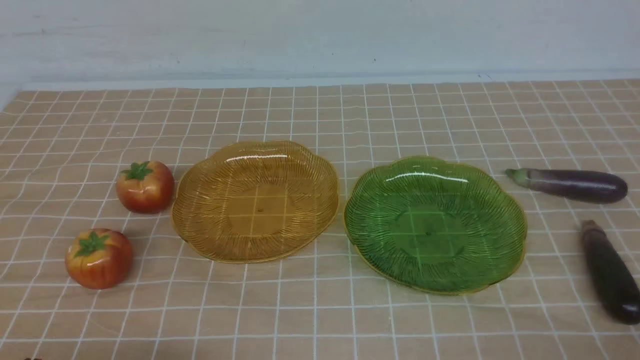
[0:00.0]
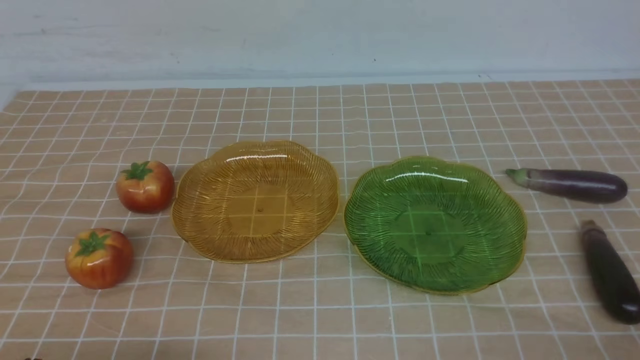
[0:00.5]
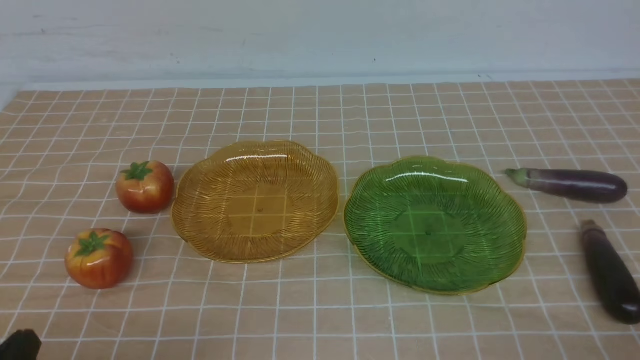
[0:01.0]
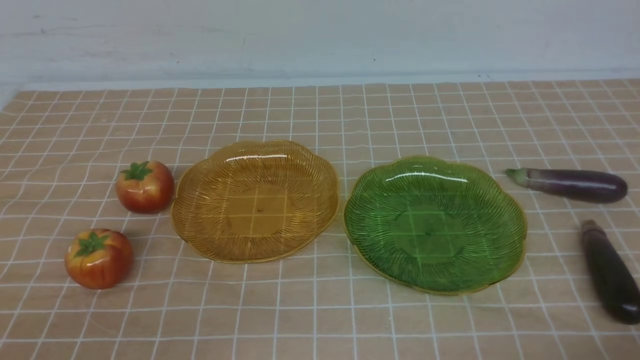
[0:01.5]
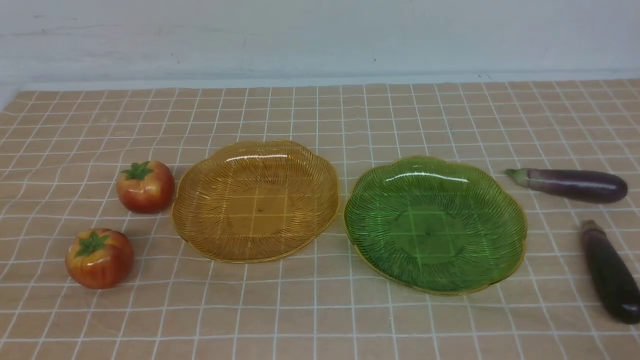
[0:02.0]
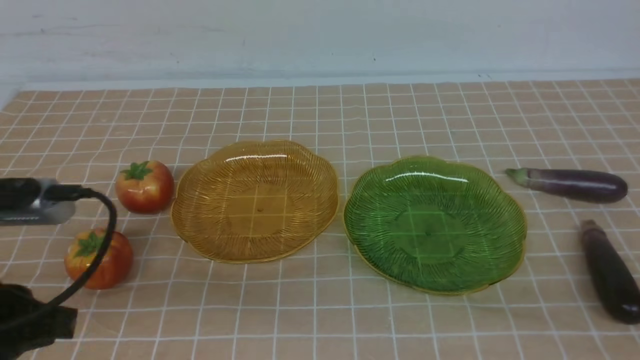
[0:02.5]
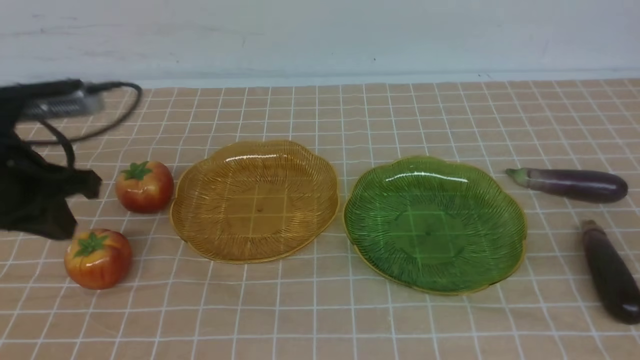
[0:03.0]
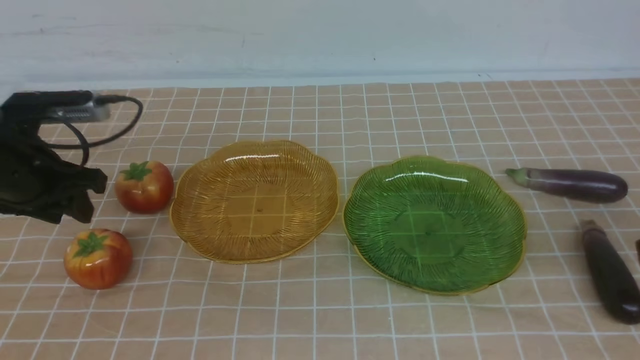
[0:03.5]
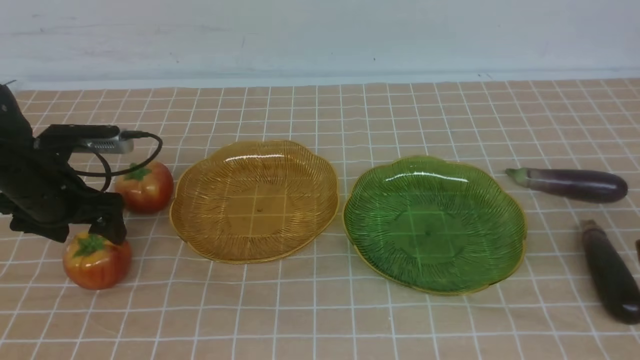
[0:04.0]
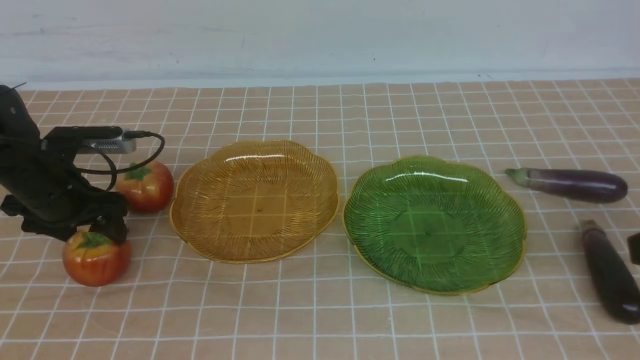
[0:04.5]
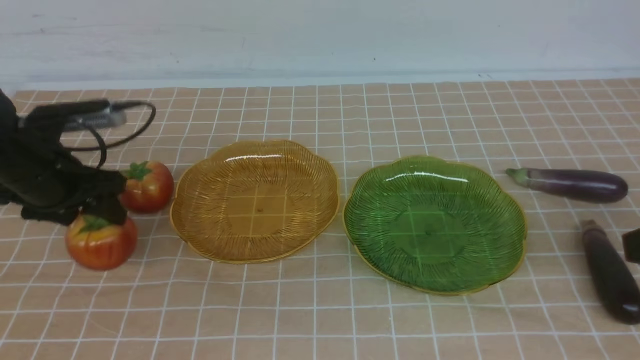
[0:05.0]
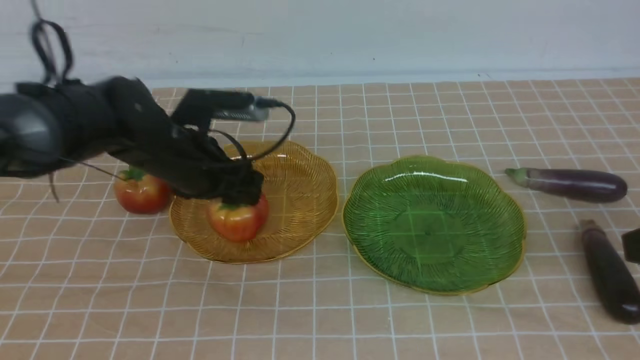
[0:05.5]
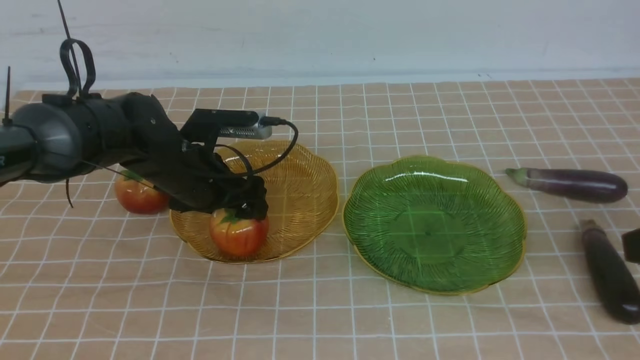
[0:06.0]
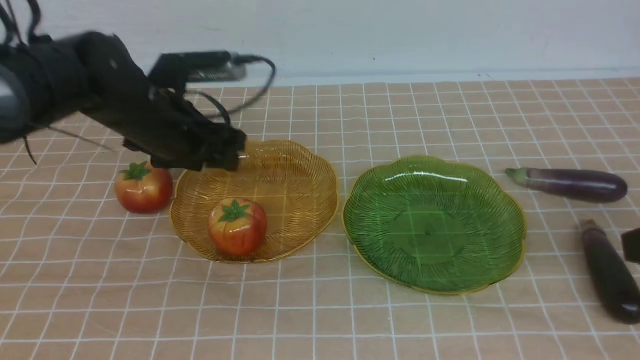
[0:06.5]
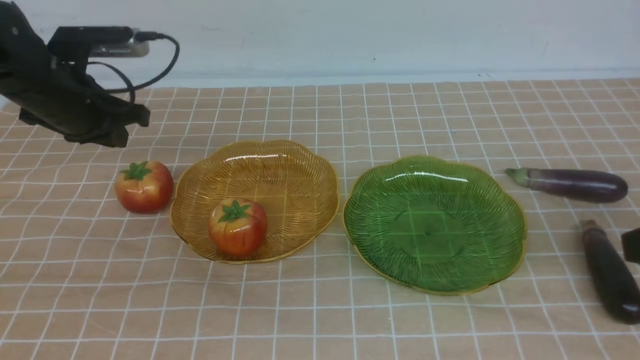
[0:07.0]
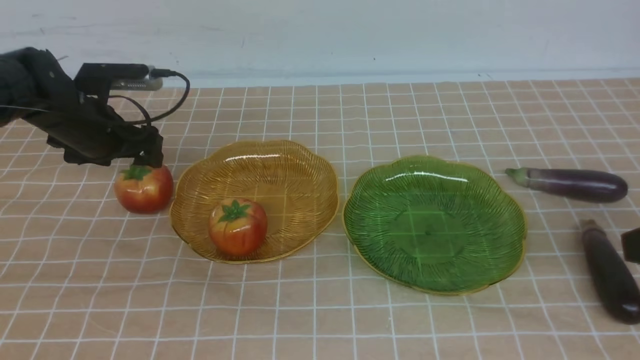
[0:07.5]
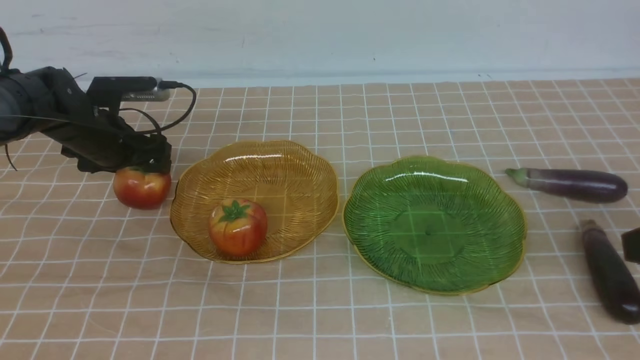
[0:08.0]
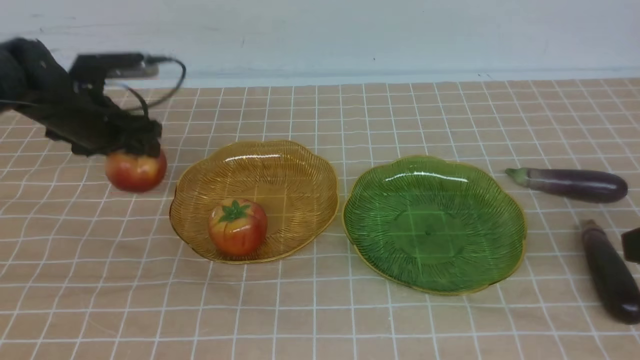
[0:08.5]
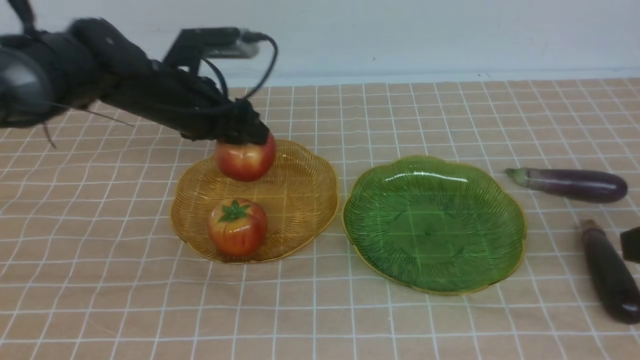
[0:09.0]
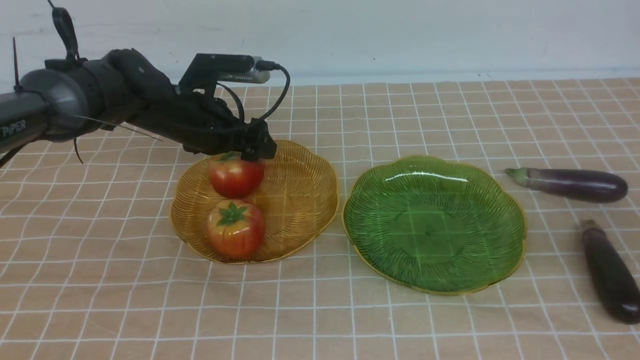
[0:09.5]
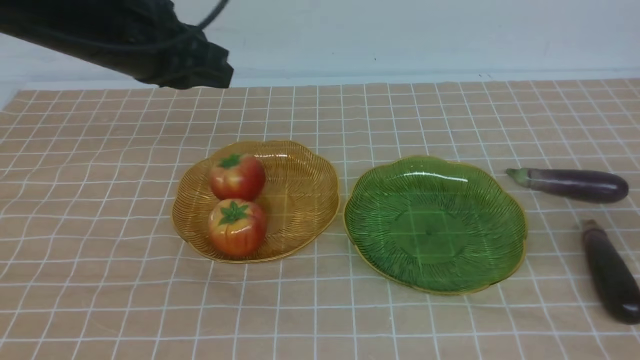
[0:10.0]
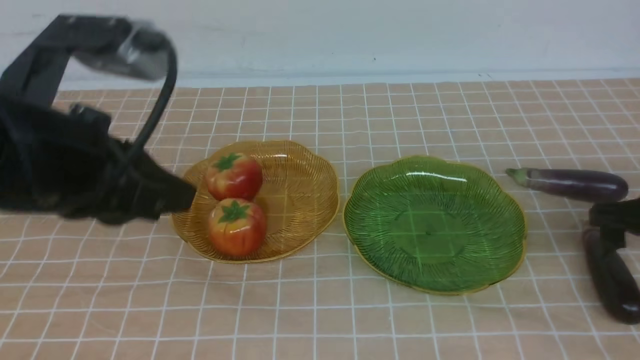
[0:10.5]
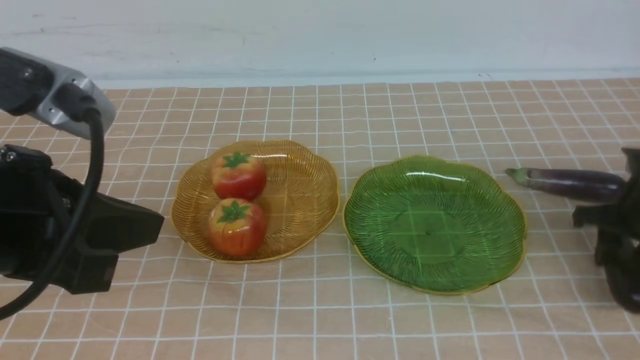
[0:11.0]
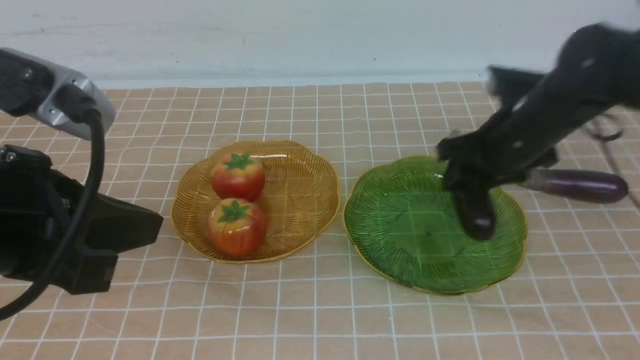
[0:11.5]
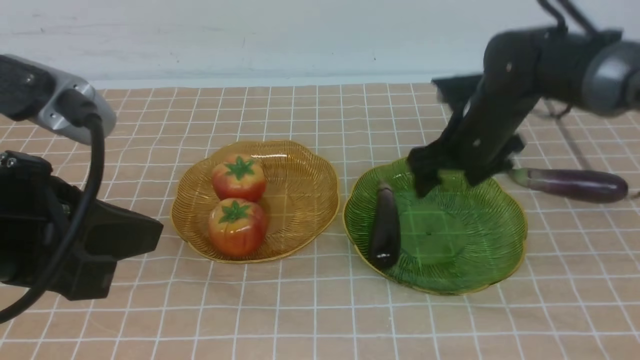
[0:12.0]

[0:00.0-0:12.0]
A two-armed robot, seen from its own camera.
Step, 0:00.0 to 0:06.0: use the left arm to grab a tomato and put it into the left plate.
Step, 0:06.5 to 0:09.0: use the left arm to grab a tomato and put it into the left plate.
0:02.0 to 0:04.0: The right gripper shifts approximately 15 cm upward and forward. Meanwhile the left gripper travels forward and downward by approximately 30 cm, and opens its fingers.
0:04.0 to 0:06.0: The left gripper goes about 15 cm to the right.
0:06.0 to 0:08.0: The left gripper moves to the left and forward, approximately 15 cm, and closes, then opens again.
0:08.0 to 0:10.0: The right gripper heads forward, downward and to the right, covering approximately 15 cm, and opens. The left gripper shifts about 30 cm upward, backward and to the right, and closes up.
0:10.0 to 0:12.0: The left gripper heads backward, covering some 15 cm. Meanwhile the right gripper goes approximately 20 cm forward and to the left.

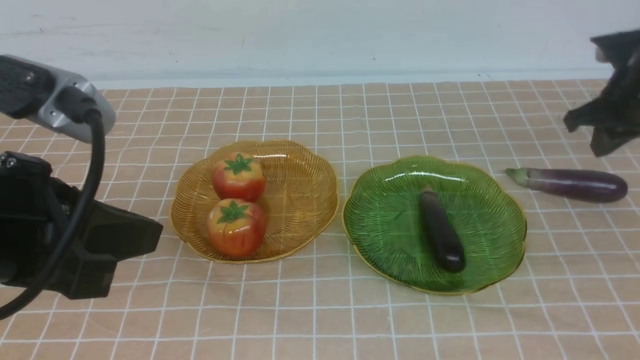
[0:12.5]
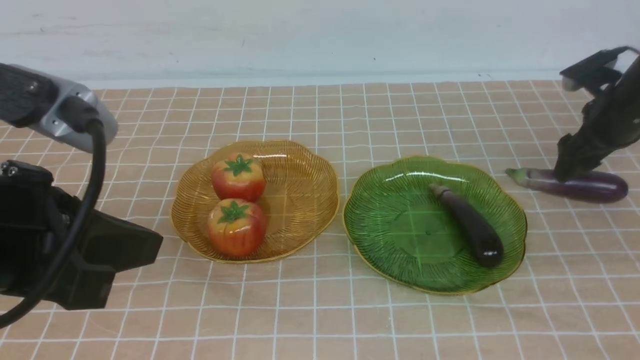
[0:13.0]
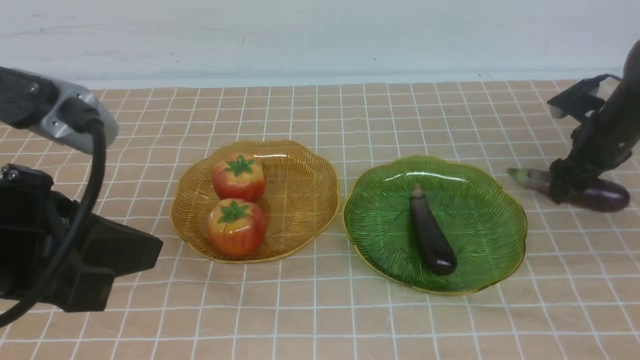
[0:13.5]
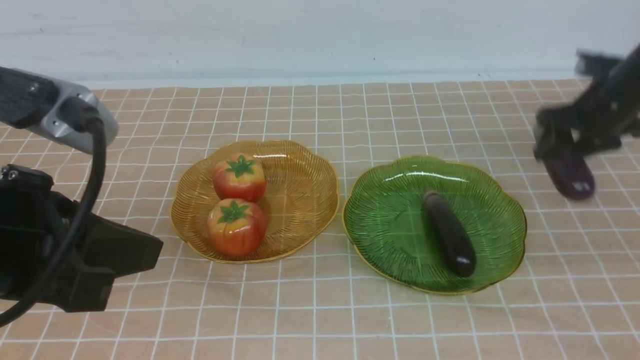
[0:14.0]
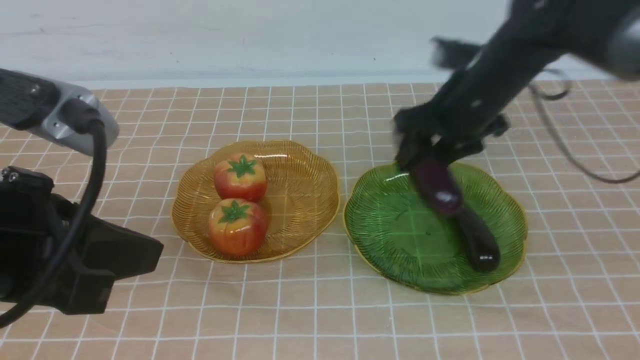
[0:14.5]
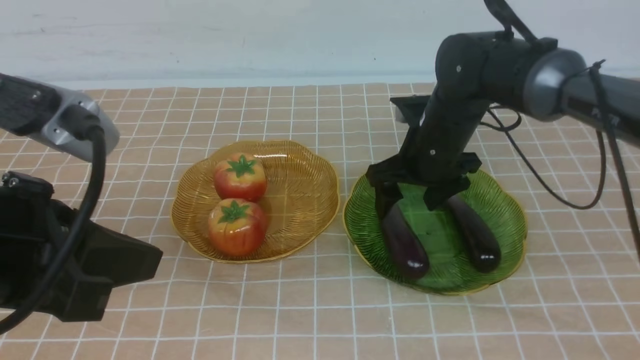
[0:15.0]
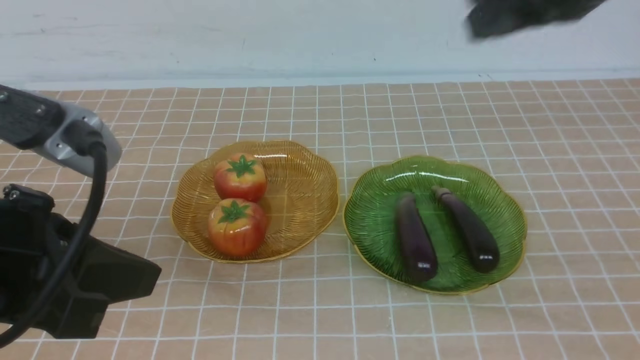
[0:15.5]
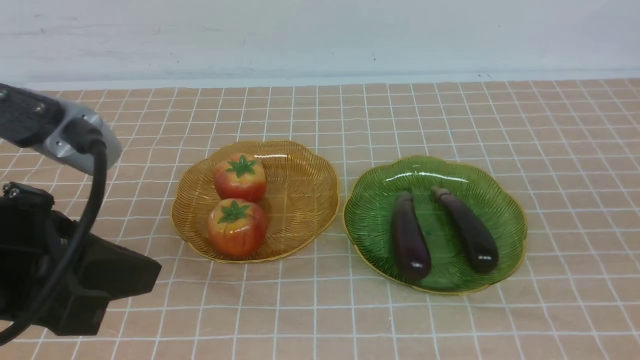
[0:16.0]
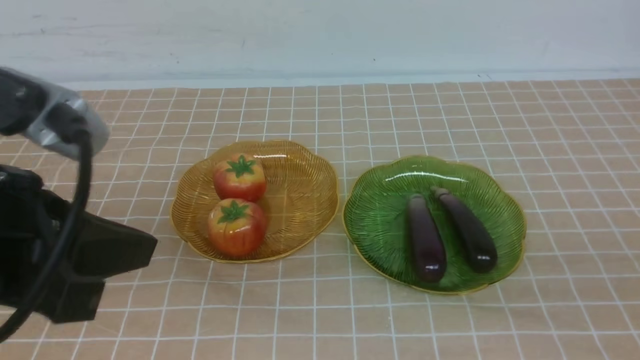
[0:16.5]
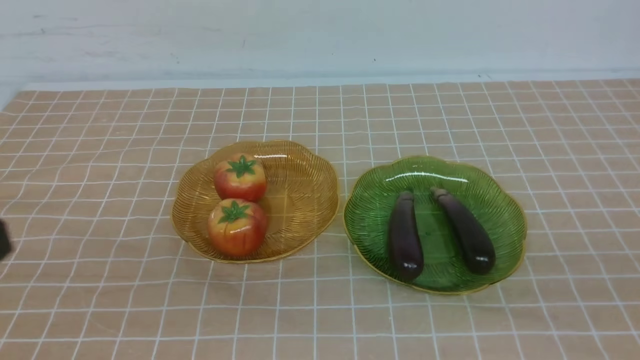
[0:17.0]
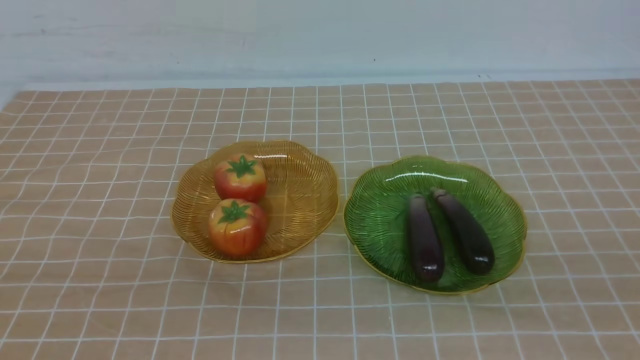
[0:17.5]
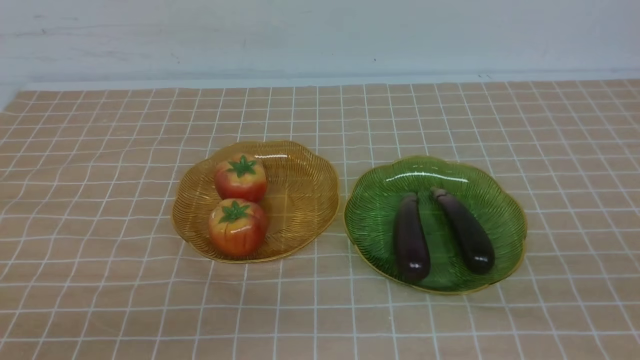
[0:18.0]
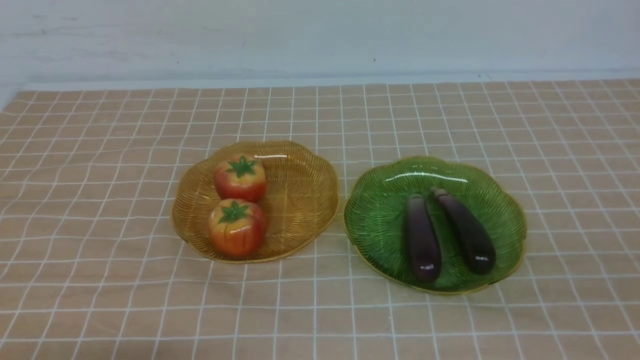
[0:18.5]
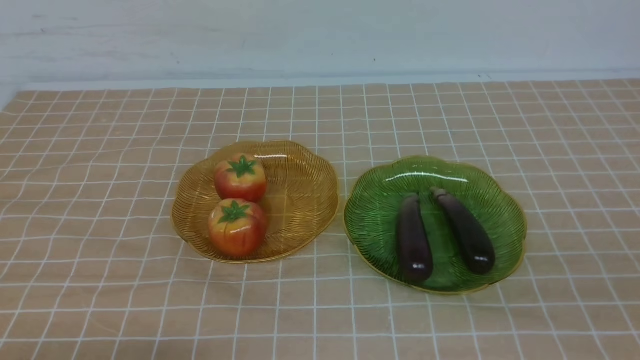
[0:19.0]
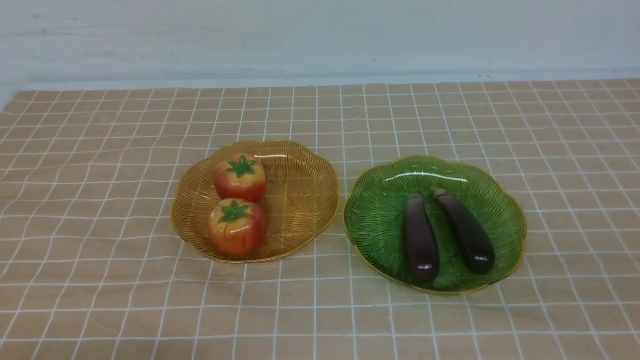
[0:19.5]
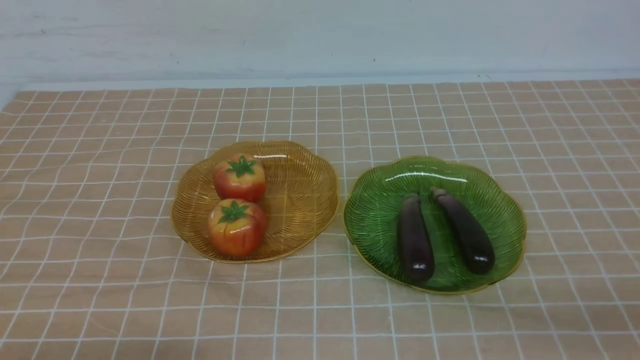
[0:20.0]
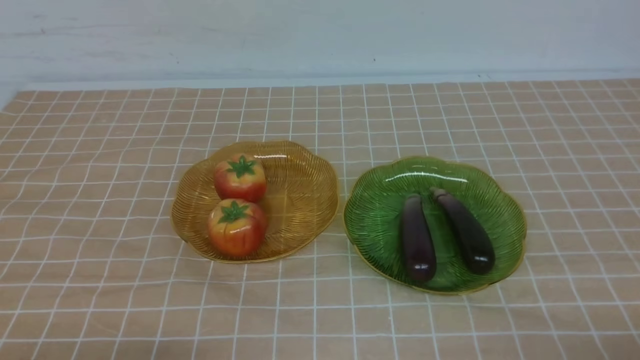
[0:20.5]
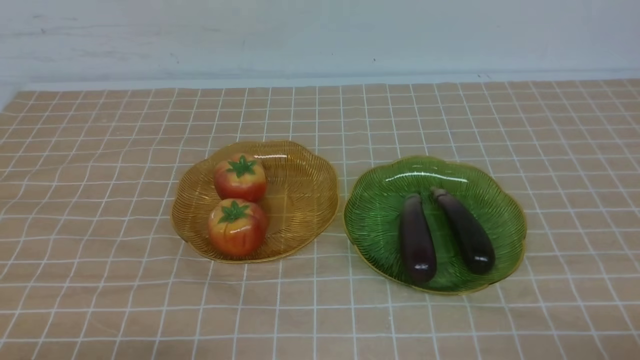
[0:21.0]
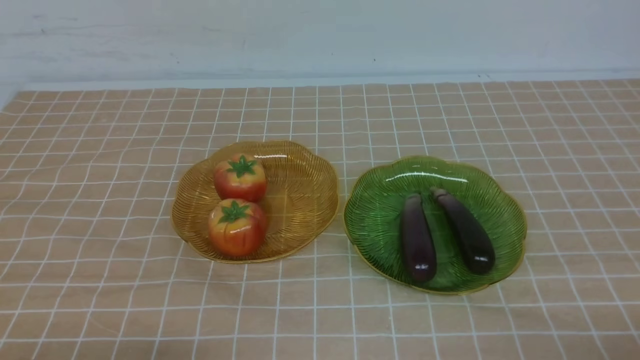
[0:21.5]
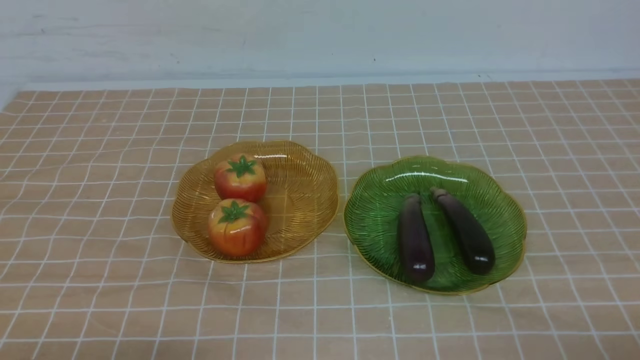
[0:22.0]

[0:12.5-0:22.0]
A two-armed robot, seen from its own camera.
Step, 0:12.5 to 0:15.0: use the right arm to grab an eggplant and put it into the right plate.
0:12.5 to 0:14.5: The right gripper is displaced to the left by some 15 cm, and opens.
0:14.5 to 0:16.5: The right gripper heads backward, covering roughly 40 cm, and closes up.
0:16.5 to 0:18.0: The left gripper moves downward and backward, roughly 15 cm.
